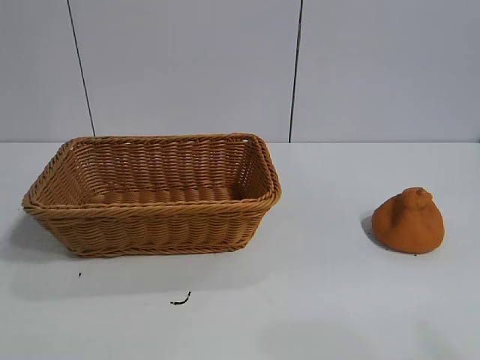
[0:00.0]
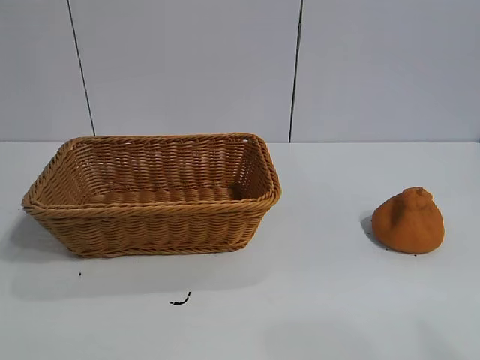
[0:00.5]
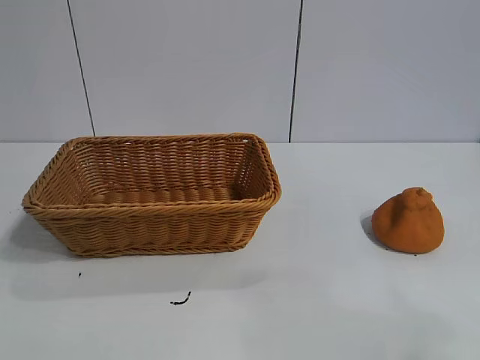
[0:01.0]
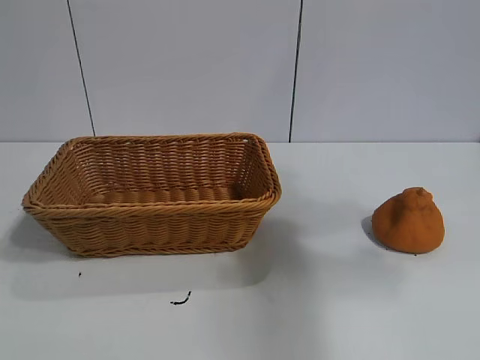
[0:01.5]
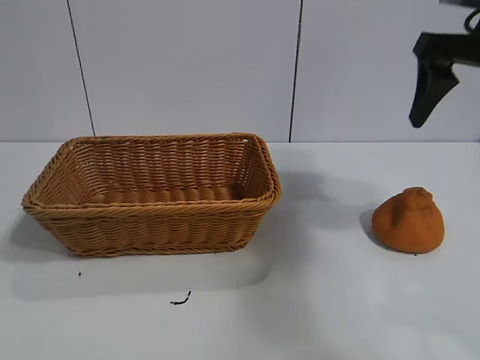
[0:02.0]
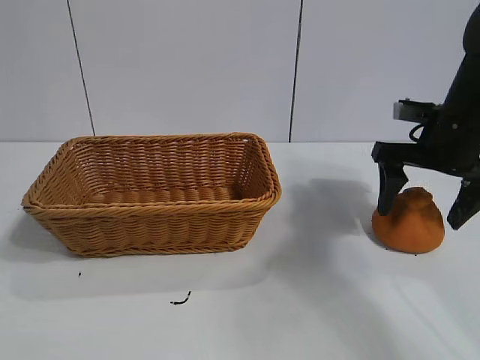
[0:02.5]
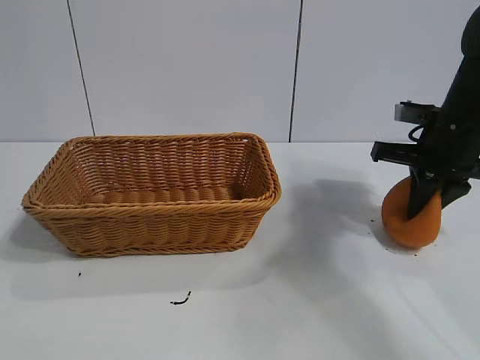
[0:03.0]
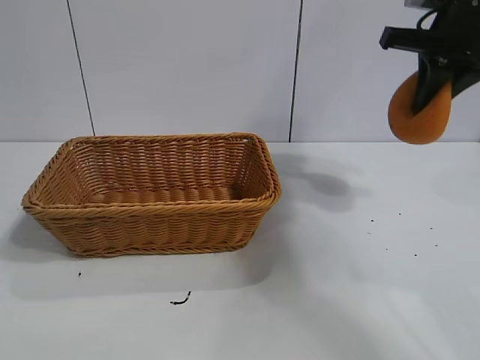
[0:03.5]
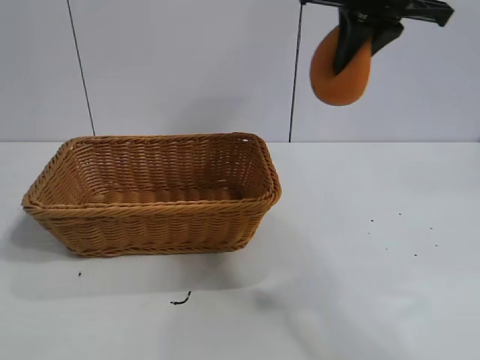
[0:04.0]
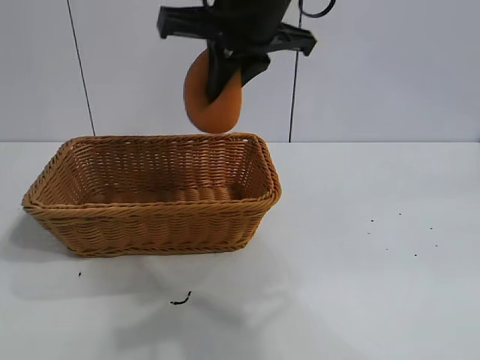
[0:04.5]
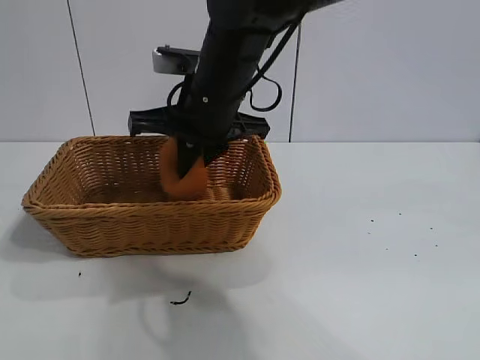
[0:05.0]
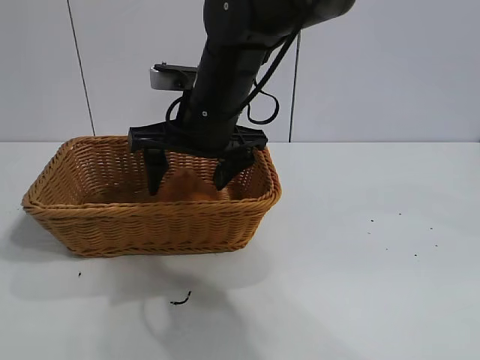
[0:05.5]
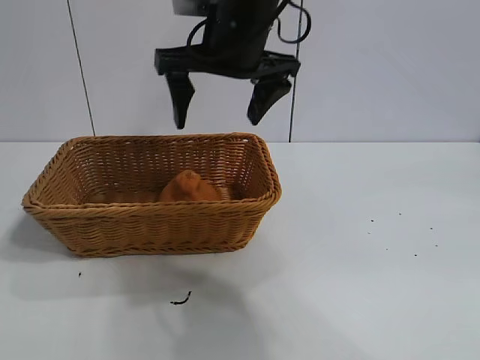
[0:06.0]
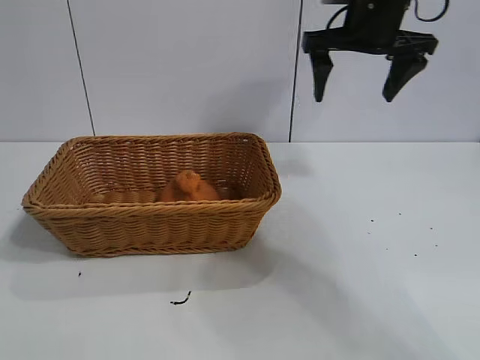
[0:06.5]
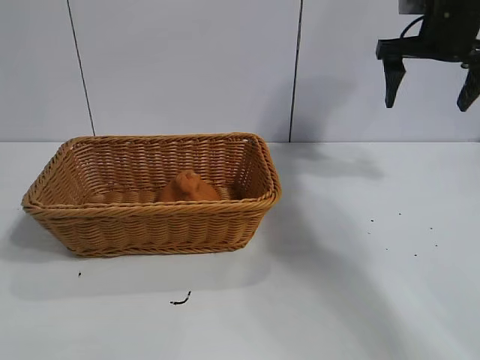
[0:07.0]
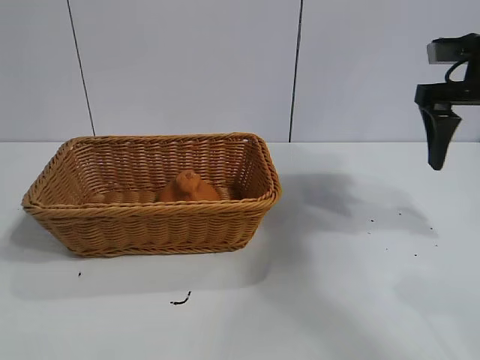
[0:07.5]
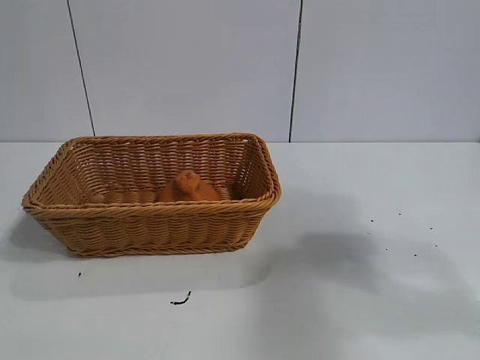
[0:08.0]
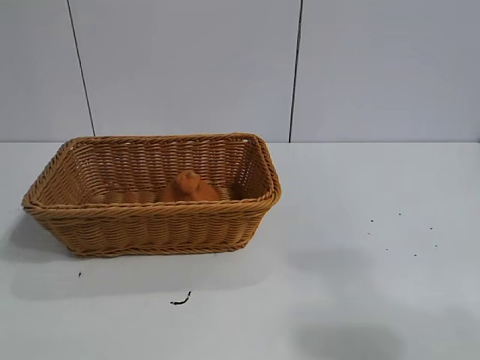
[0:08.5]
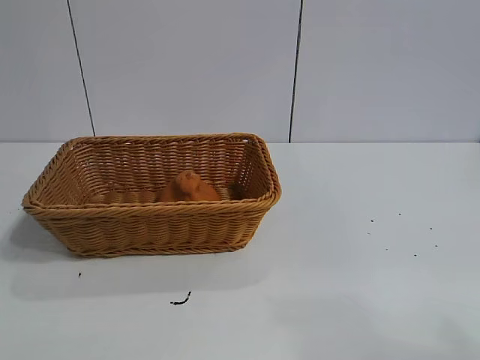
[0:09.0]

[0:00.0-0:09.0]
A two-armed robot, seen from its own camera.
Task of the whole recording: pick up the orange and put it into the basket.
Step, 0:01.0 to 0:02.5: Grasp the orange with right gripper.
Step, 0:03.0 to 0:05.5: Place the orange in the basket with right gripper.

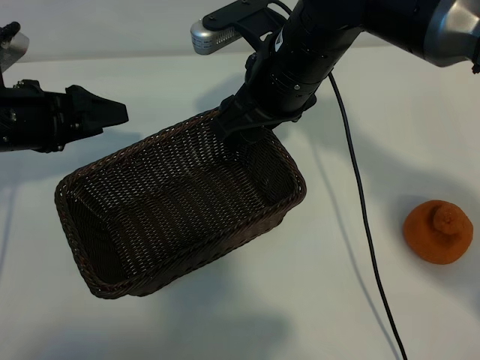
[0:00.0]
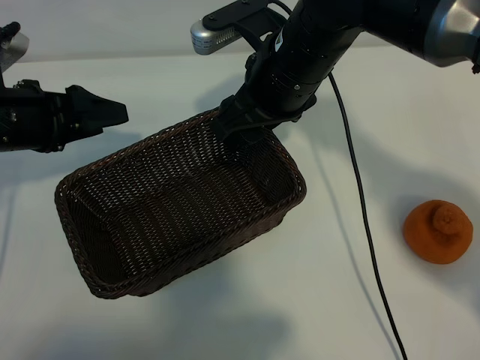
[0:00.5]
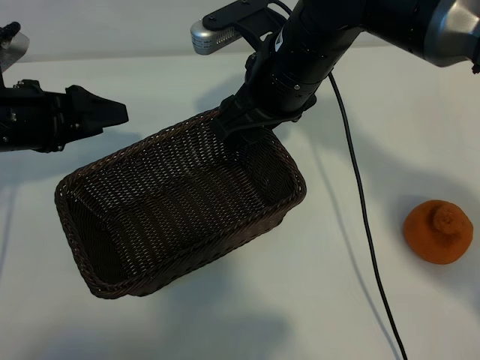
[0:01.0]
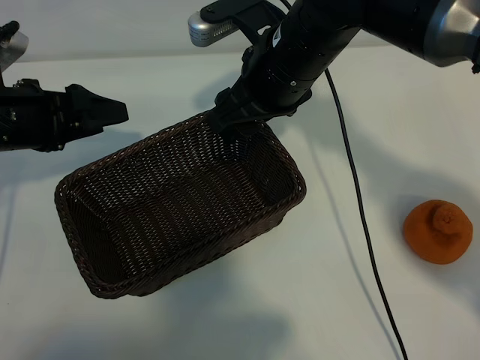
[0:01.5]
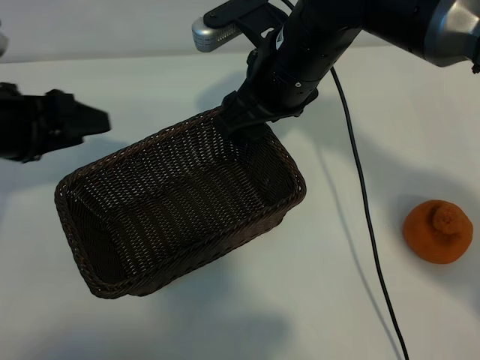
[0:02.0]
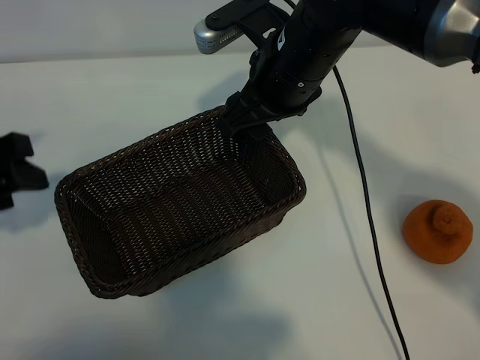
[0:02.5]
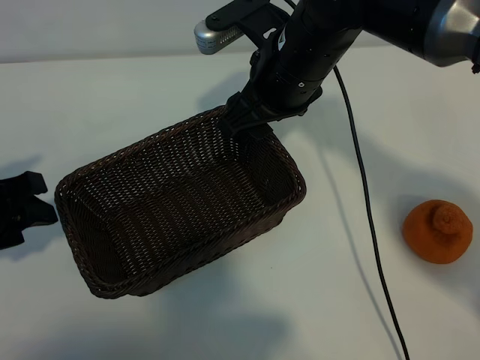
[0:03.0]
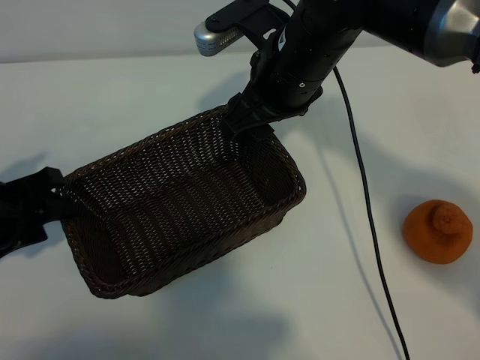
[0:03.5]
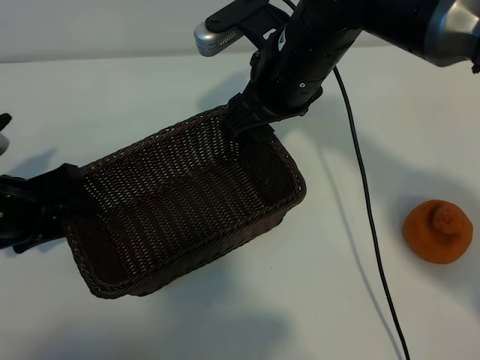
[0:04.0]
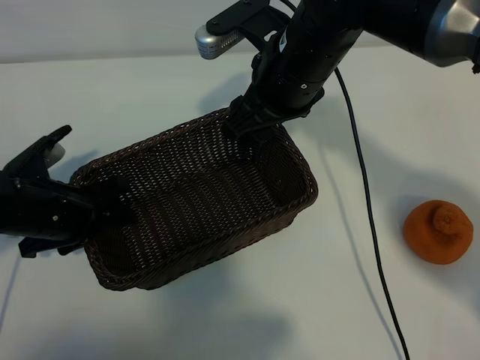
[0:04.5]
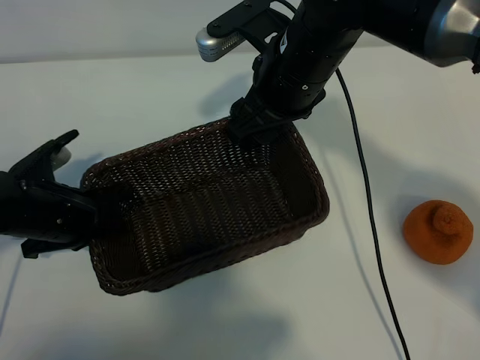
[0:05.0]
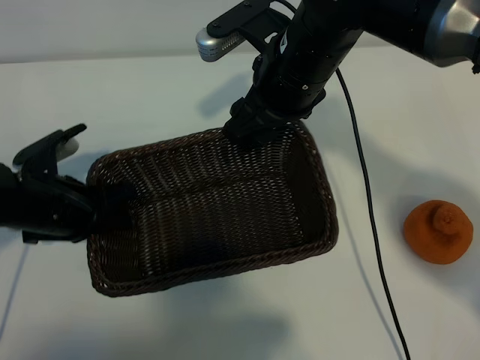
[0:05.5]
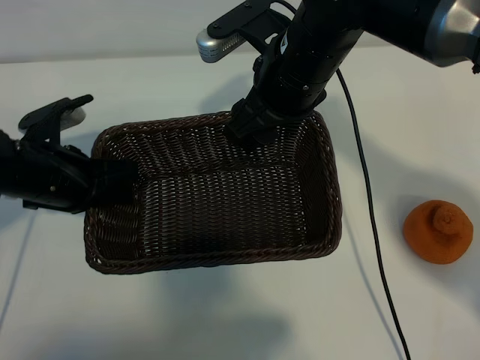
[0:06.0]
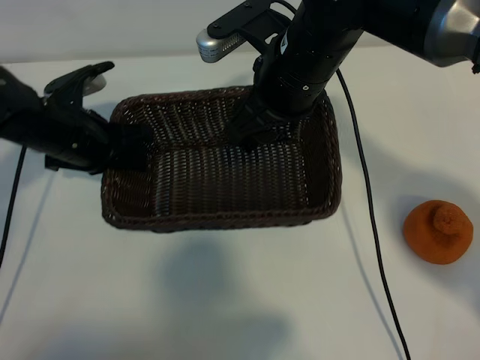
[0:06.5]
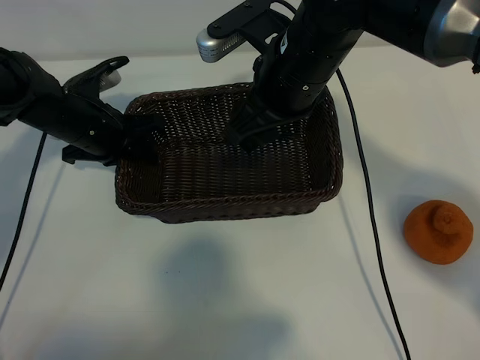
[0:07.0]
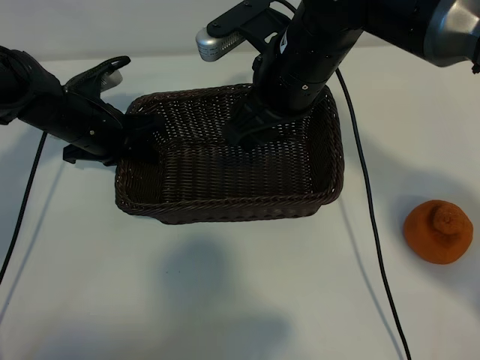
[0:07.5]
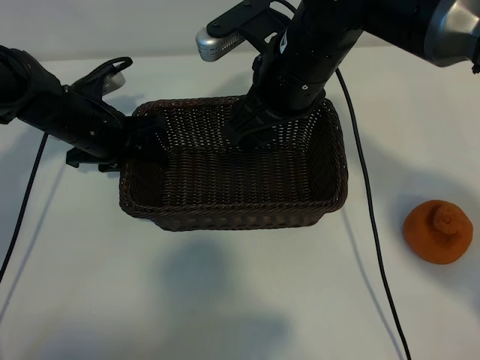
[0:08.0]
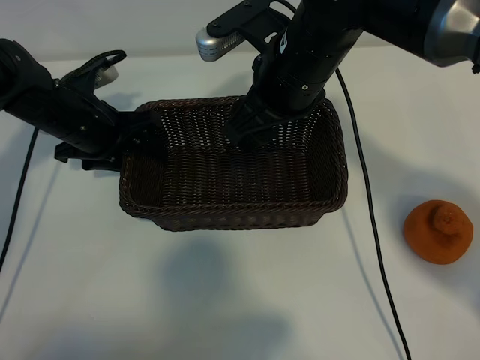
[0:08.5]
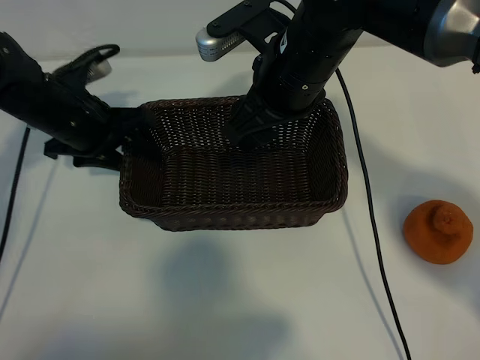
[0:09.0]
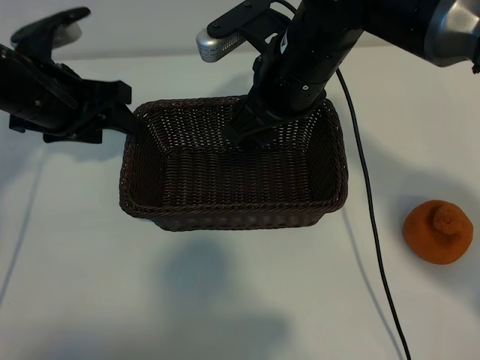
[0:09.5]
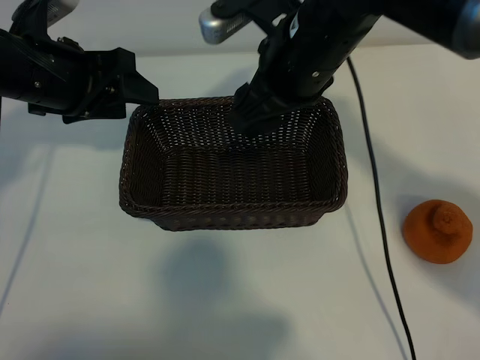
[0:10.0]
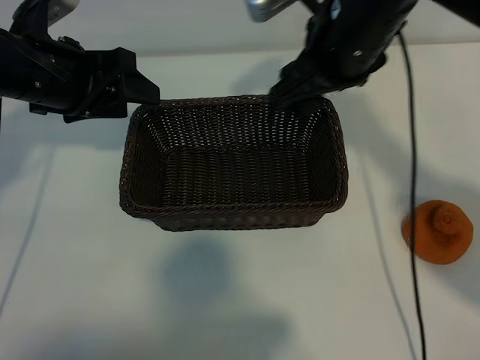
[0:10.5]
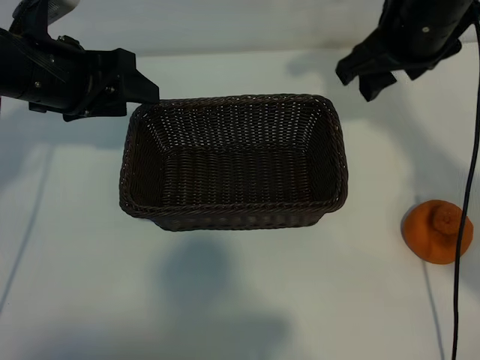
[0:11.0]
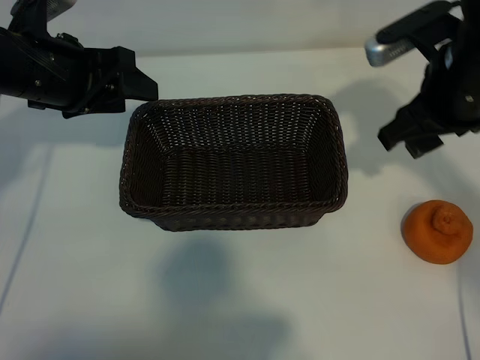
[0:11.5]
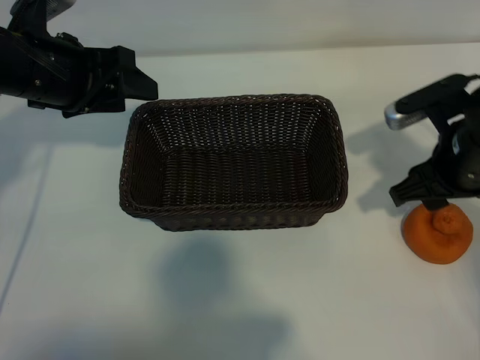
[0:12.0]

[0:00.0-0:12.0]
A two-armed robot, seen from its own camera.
Task of the whole recording: pick up the orange and put it into the basket.
Step, 0:01.5 to 0:04.5: Grasp the basket with left gripper.
Step, 0:05.5 to 0:08.0: Place the basket in the center of view with left gripper.

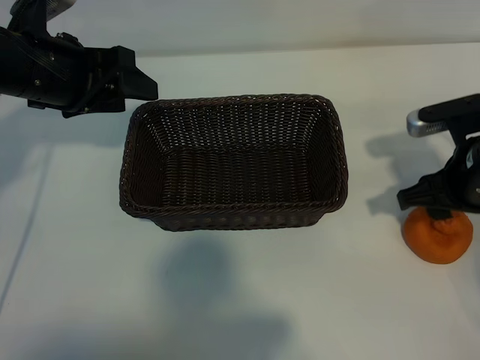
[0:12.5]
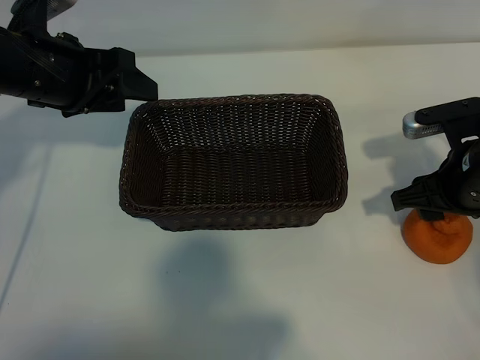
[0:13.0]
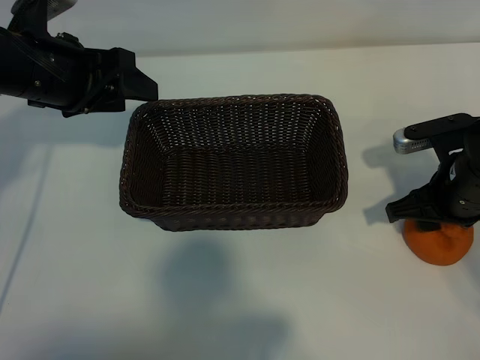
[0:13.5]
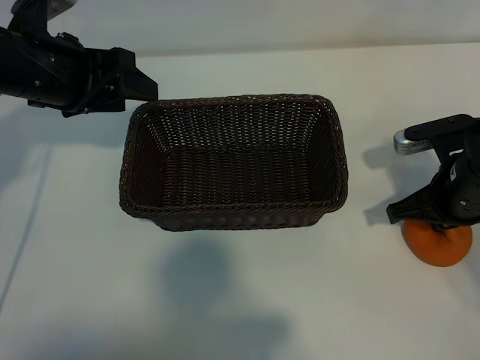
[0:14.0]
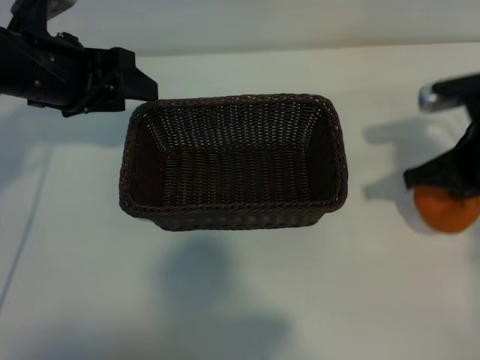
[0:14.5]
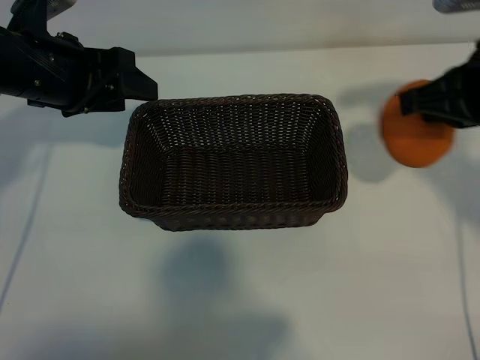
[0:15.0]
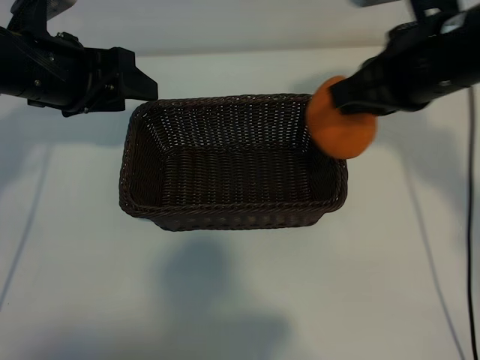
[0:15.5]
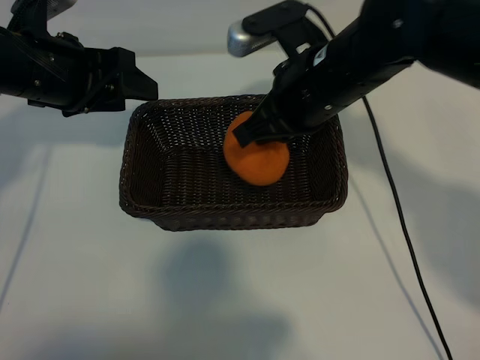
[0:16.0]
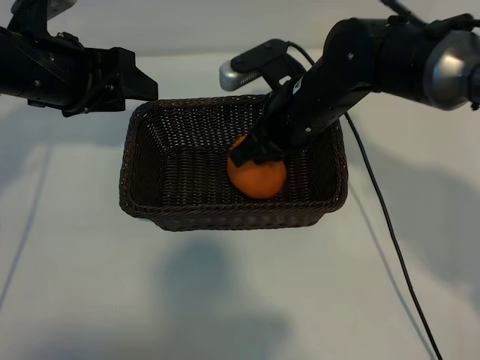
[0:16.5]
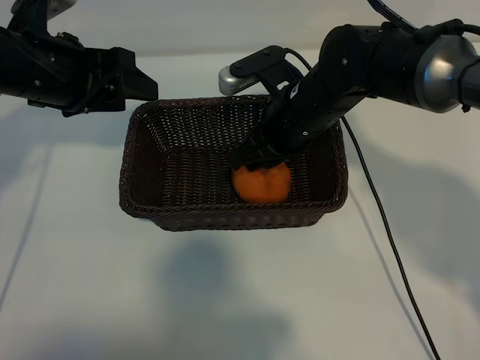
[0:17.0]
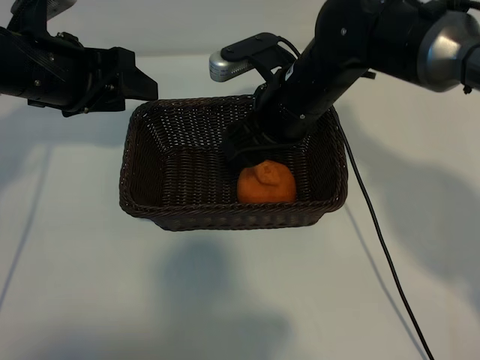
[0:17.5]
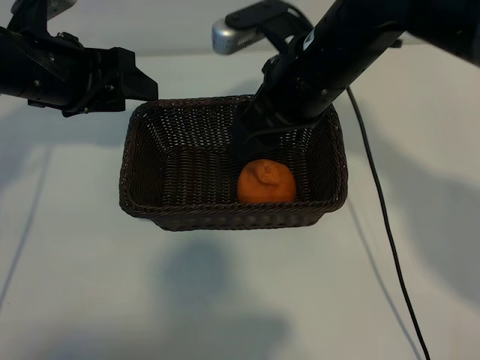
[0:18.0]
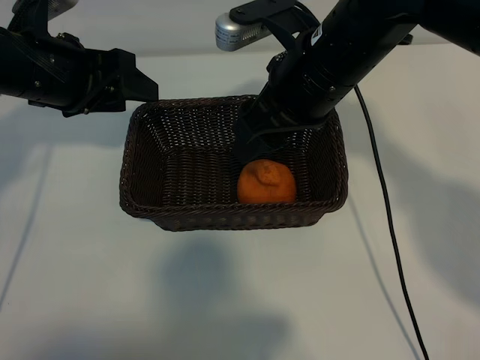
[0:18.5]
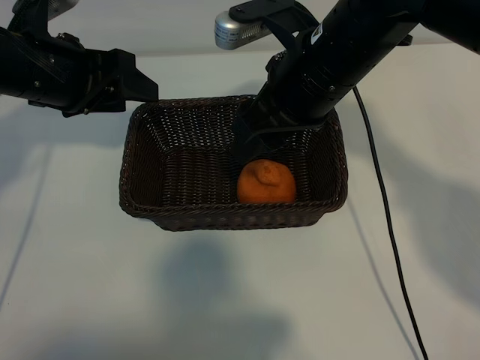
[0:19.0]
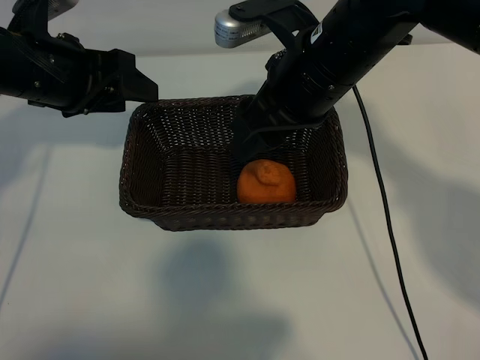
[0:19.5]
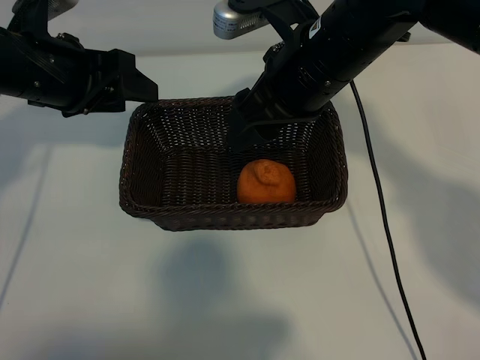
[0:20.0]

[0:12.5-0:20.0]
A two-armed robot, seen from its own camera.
Task of the whole recording: pick up the orange and put it into the basket.
Step, 0:14.5 to 0:17.0: Place the orange in the basket with right gripper.
